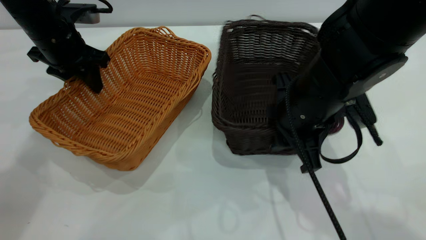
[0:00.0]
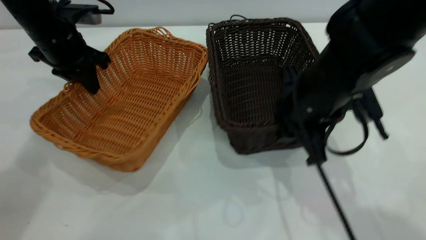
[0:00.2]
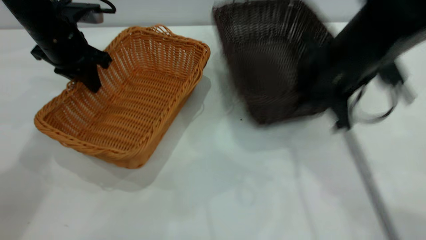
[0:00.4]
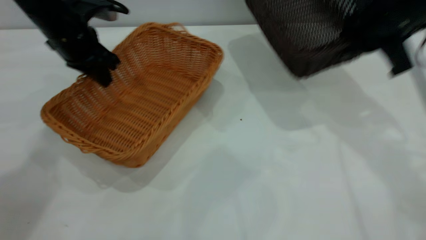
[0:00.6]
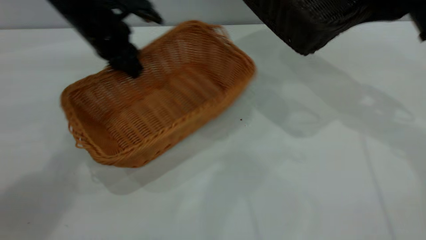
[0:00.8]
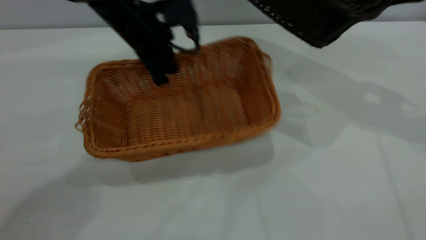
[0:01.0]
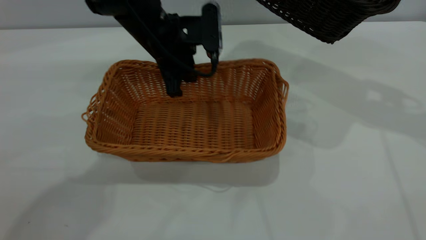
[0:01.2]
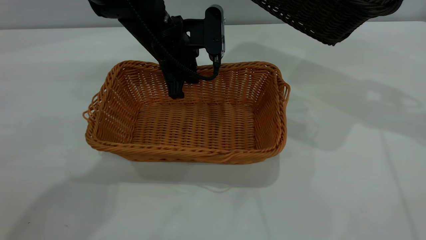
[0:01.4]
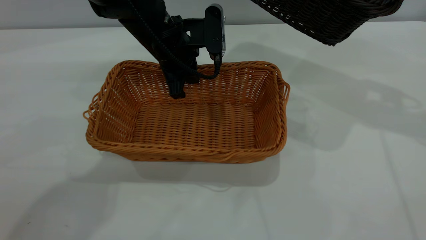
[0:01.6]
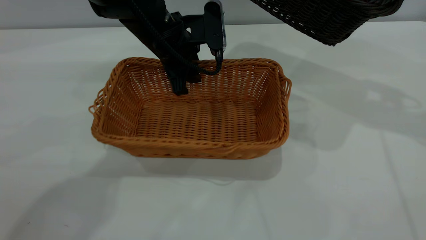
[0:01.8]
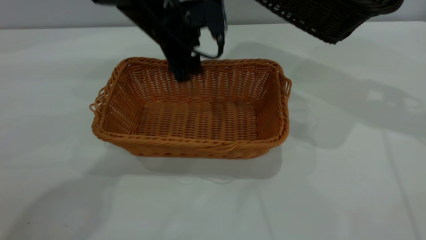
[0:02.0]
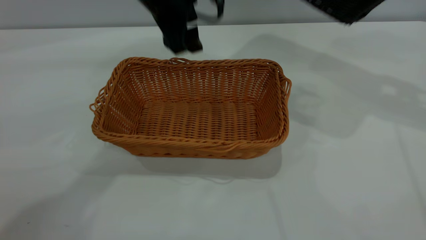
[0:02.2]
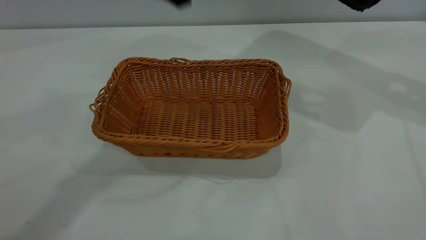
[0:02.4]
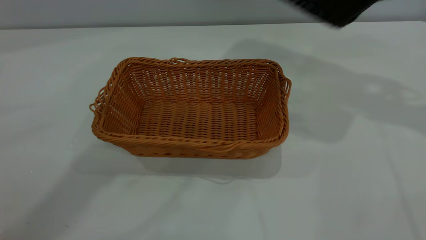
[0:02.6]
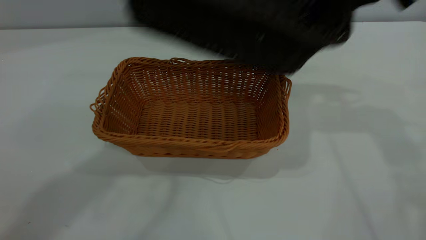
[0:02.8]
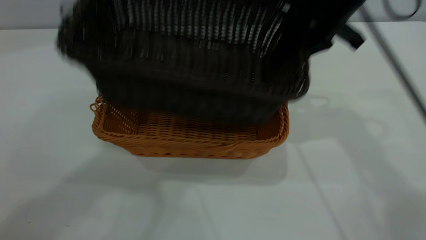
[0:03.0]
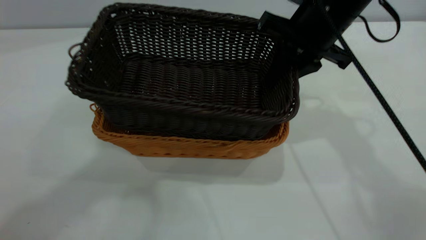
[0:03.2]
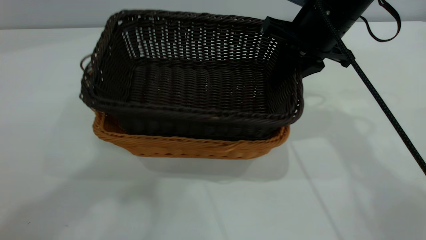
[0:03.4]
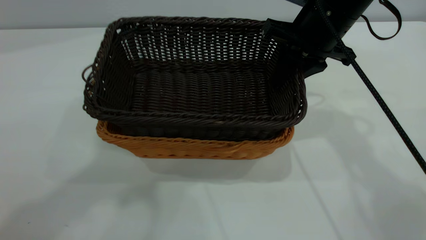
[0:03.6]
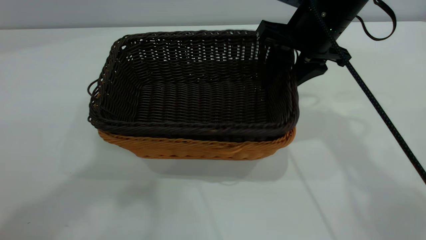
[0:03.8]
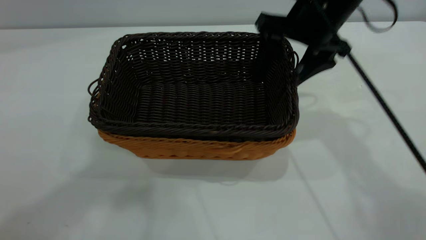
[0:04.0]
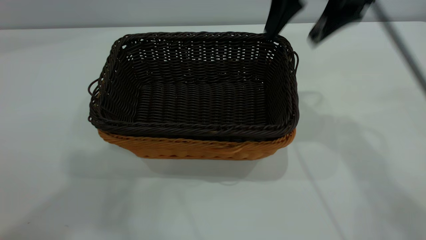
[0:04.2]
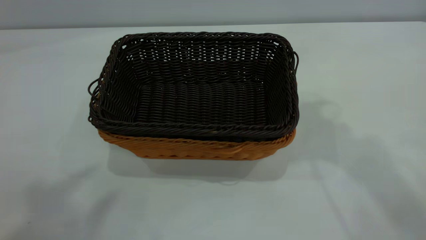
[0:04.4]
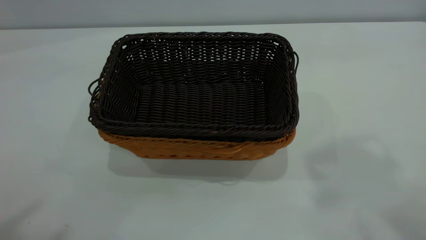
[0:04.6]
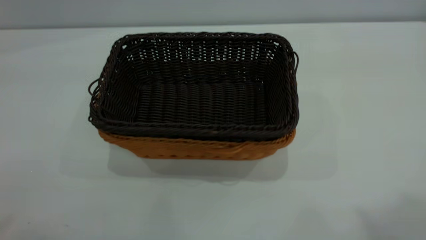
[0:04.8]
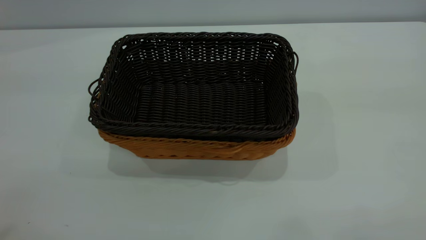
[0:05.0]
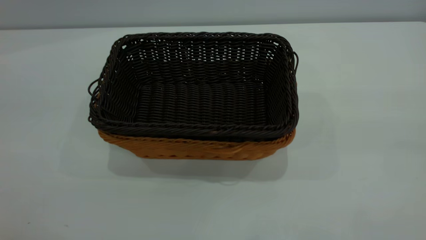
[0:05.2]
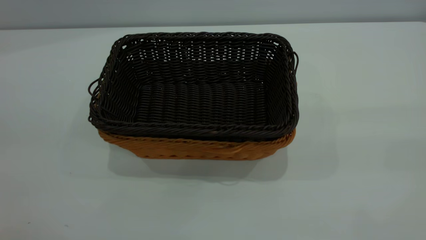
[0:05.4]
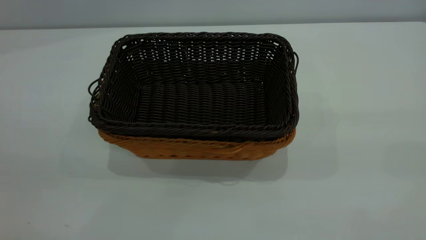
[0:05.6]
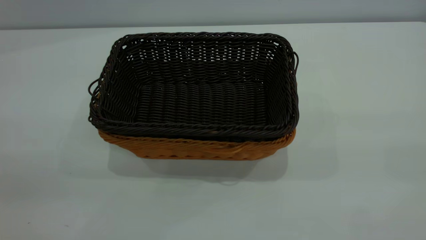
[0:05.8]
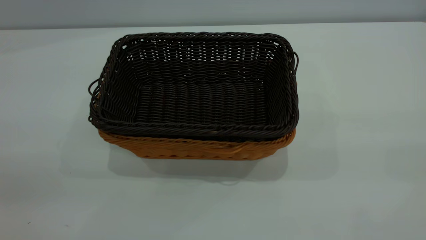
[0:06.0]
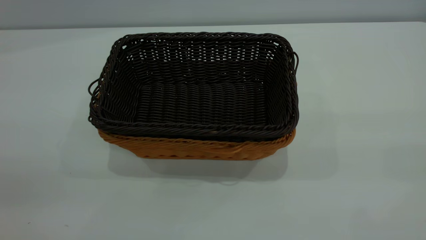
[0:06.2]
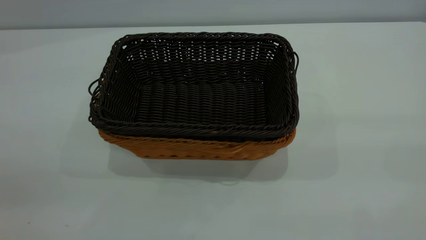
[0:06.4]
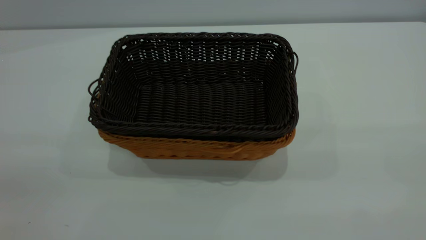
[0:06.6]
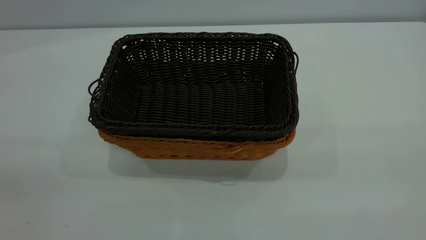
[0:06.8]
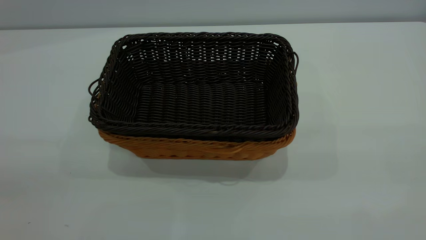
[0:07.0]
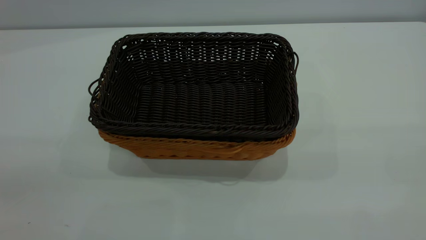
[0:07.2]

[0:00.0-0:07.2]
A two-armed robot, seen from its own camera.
Task of the whole recording: the left gripper grasp the brown basket and place it in the center of the table, the right gripper grasp the black basket and place it inside the brown one.
Step, 0:00.6 to 0:02.0: Place the light-colored basket in the center.
Step, 0:02.2 to 0:04.0: Place the dark basket on top of the light basket.
0:00.0 to 0:01.4: The right gripper goes some 25 cm to the right, upward and forward. The left gripper shifts some 15 cm to the right.
0:01.4 to 0:02.8: The left gripper shifts roughly 35 cm upward, and opens. Meanwhile the right gripper goes about 10 cm to the left.
0:02.8 to 0:04.4: The left gripper shifts about 15 cm backward, upward and to the left. Meanwhile the right gripper heads upward and backward, covering some 15 cm, and opens its fingers.
